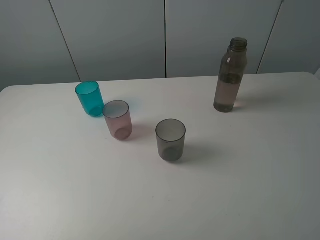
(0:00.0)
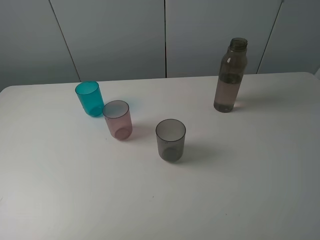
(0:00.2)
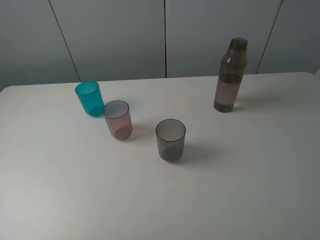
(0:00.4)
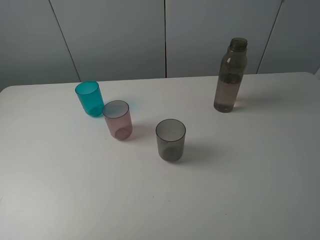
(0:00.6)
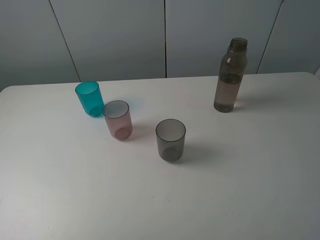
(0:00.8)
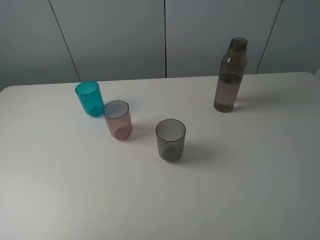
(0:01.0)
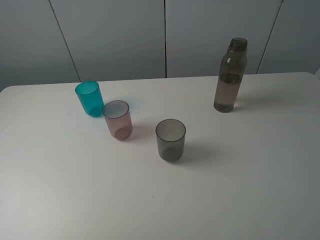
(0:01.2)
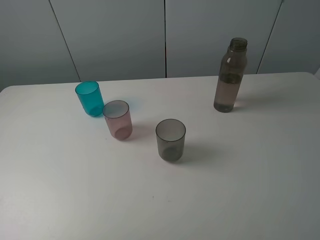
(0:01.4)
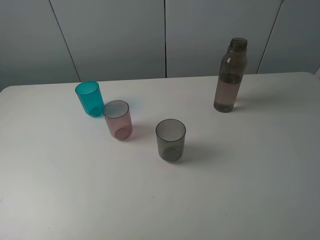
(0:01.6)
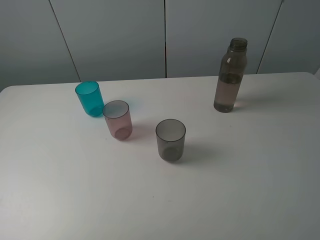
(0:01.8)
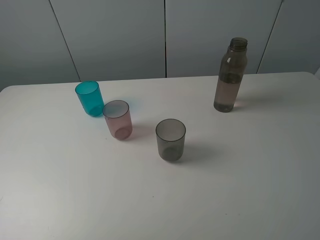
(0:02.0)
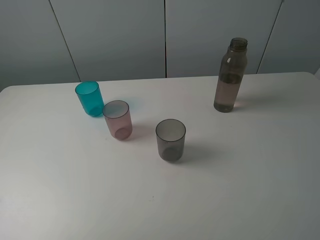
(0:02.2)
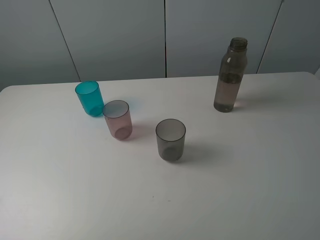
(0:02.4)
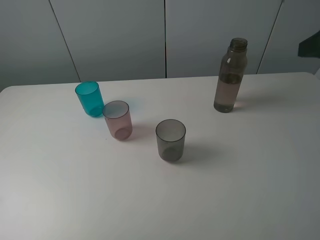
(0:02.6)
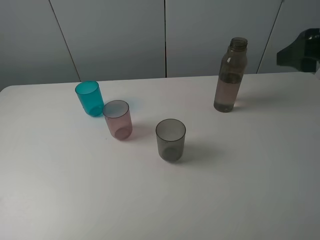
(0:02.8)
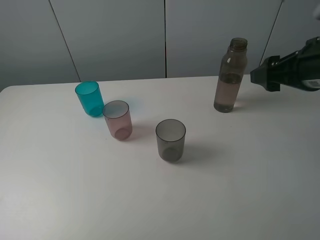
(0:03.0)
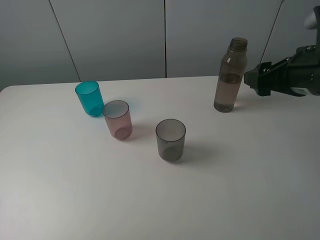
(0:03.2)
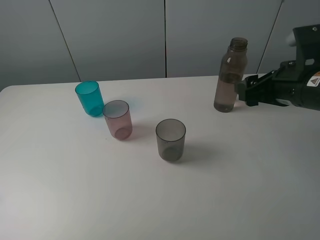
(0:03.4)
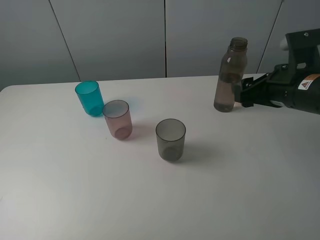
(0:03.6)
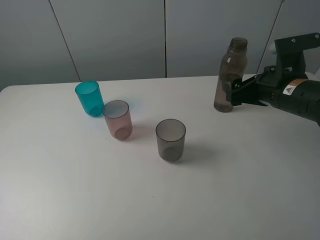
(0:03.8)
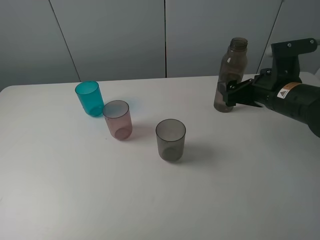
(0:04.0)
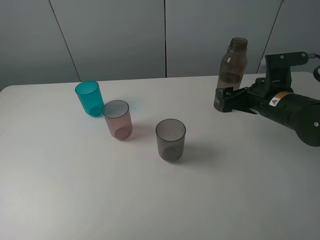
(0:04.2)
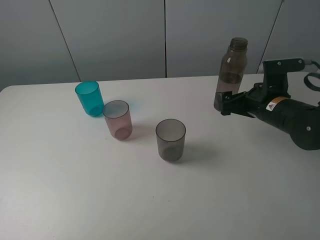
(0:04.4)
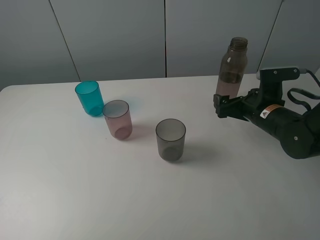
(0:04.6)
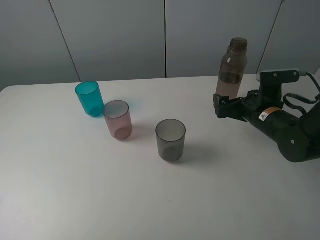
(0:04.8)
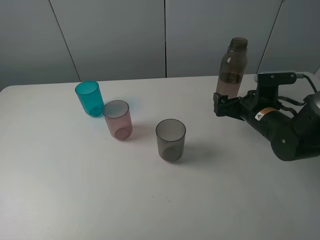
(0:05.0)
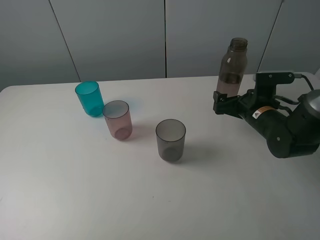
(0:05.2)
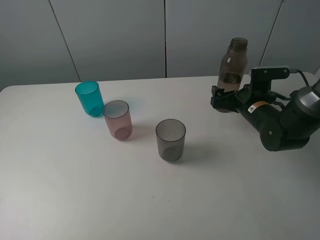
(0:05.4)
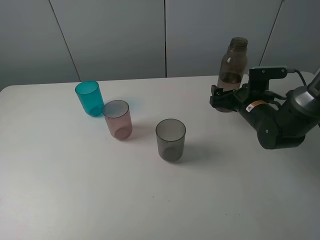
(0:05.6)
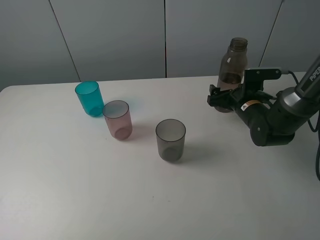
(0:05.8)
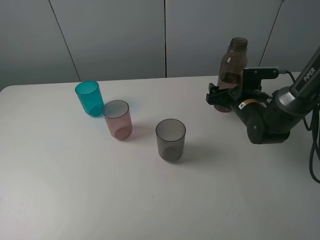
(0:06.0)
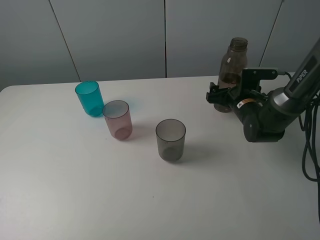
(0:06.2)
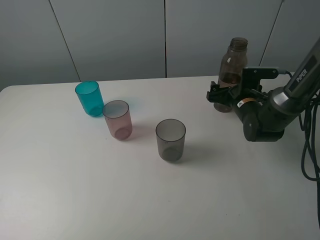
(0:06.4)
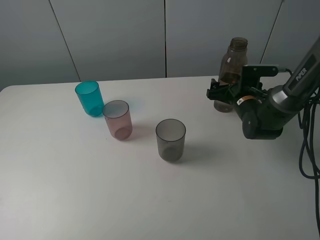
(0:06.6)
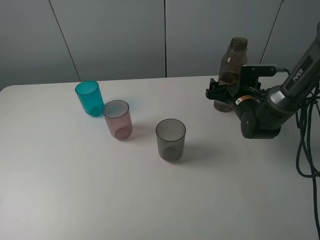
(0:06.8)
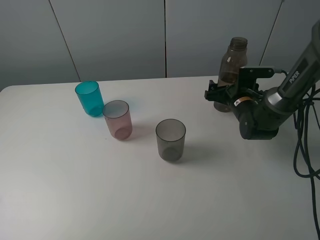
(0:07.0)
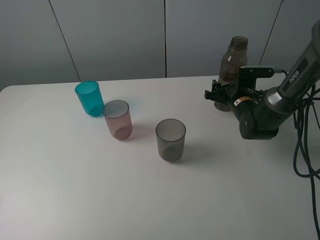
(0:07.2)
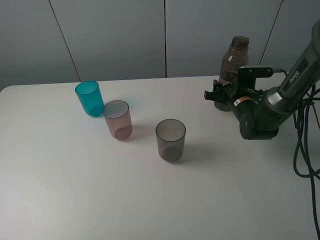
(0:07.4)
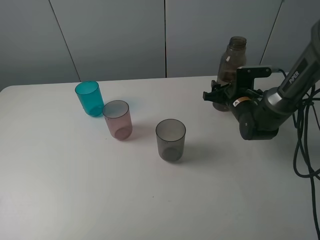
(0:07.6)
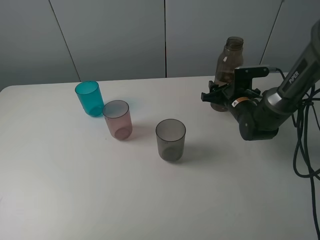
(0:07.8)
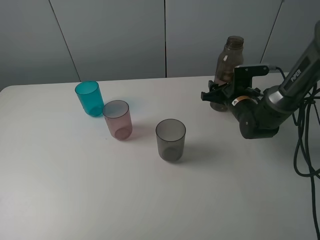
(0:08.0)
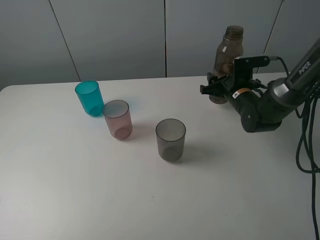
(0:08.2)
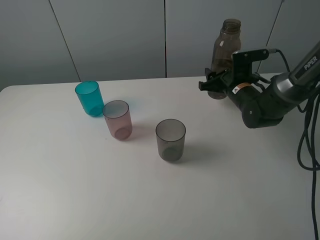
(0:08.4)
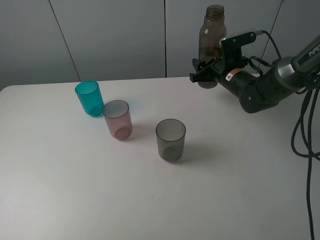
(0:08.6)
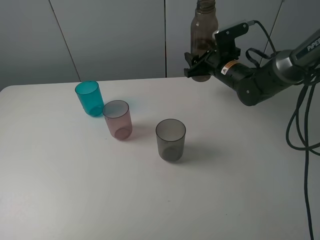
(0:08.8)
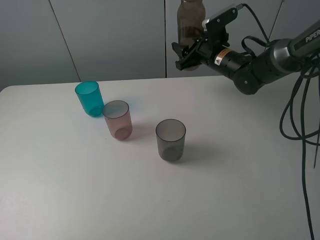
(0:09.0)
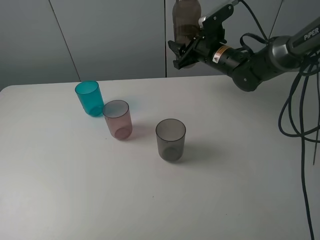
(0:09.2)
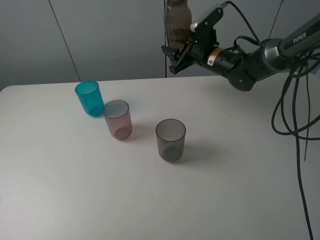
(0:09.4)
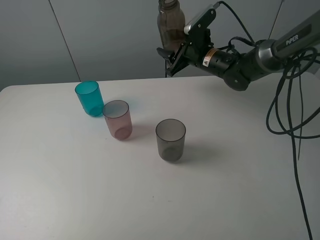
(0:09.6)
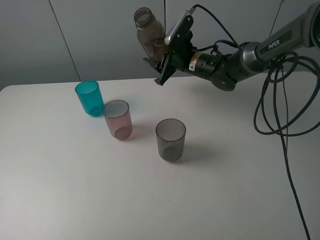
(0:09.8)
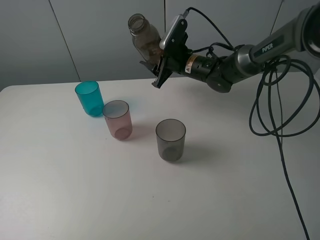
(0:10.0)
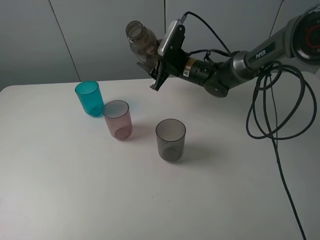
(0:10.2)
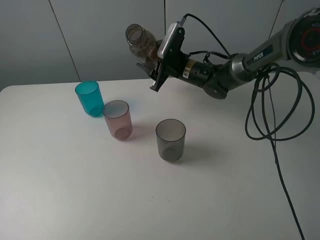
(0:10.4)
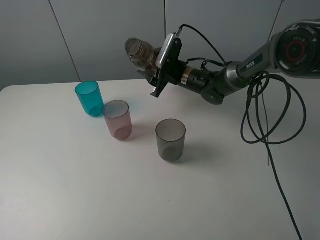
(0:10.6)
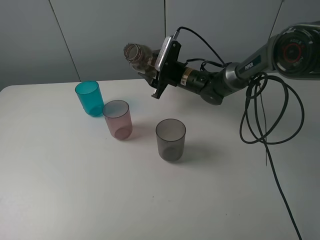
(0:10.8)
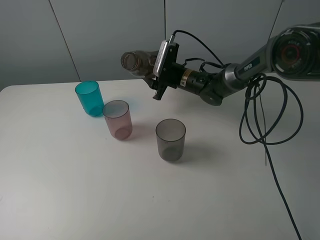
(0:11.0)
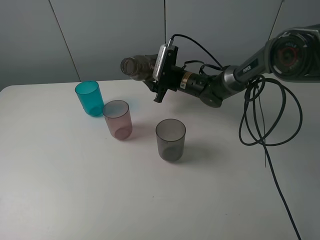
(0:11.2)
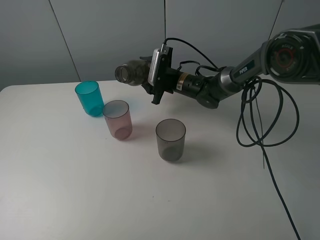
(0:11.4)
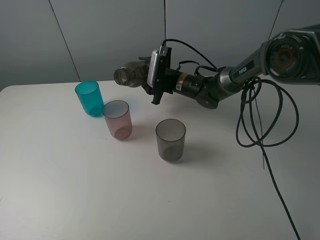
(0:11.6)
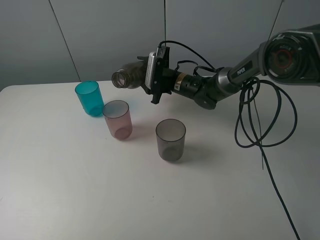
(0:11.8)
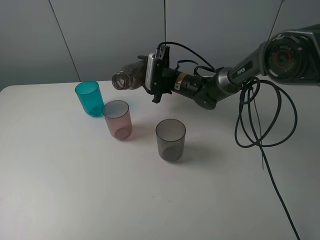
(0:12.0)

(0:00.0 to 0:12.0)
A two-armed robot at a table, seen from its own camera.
Task of the whole recording: pick up the bottle filled with water and pour water into the middle cup of the three cups.
Step, 0:00.0 - 0:08.0: Grasp the transparent bottle with the right gripper.
0:01.6 - 0:03.0: The right gripper travels forward by some 20 cm.
0:03.0 - 0:04.4: The right gripper goes approximately 15 cm downward and forward, and opens its fingers.
0:04.4 - 0:06.0: The right gripper heads forward and downward, covering some 10 cm.
0:06.0 - 0:07.6: The right gripper closes up.
0:07.6 - 0:09.0: The right gripper travels upward, to the left and forward by about 15 cm.
0:09.0 - 0:10.4: The right gripper heads to the left, covering some 5 cm.

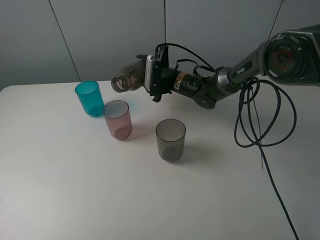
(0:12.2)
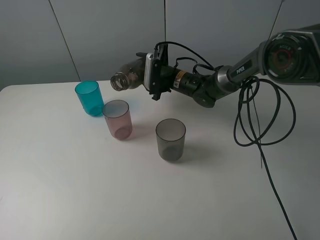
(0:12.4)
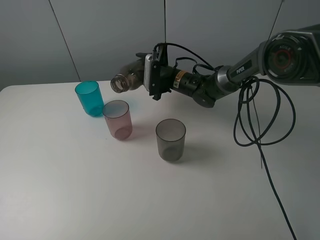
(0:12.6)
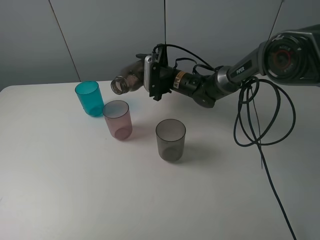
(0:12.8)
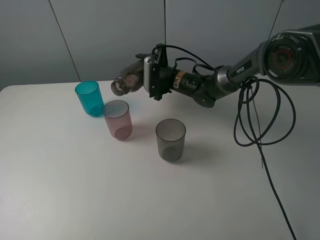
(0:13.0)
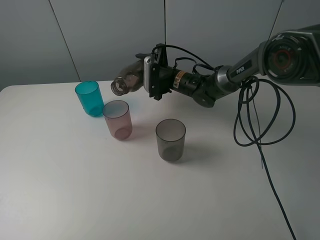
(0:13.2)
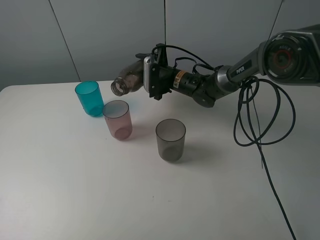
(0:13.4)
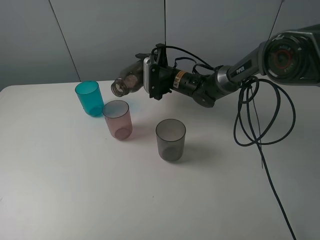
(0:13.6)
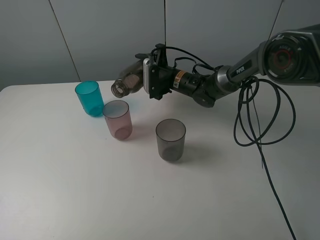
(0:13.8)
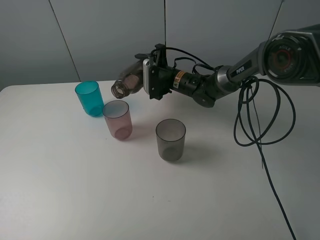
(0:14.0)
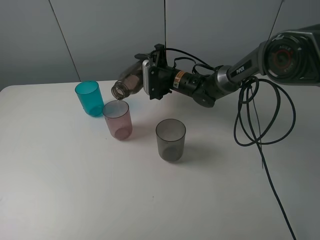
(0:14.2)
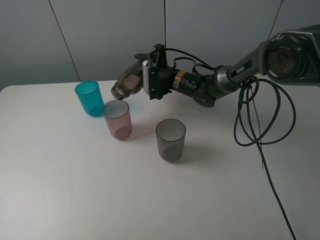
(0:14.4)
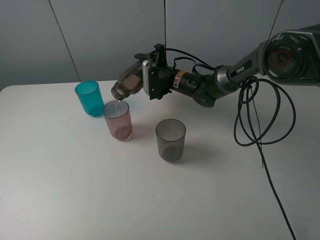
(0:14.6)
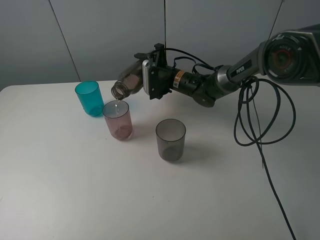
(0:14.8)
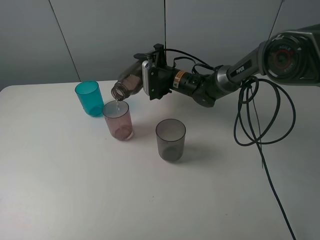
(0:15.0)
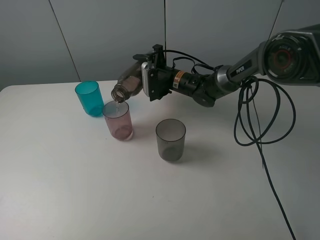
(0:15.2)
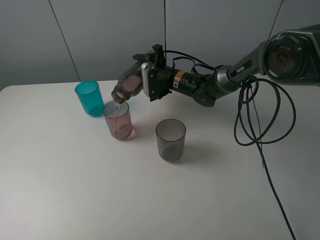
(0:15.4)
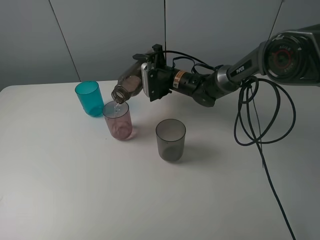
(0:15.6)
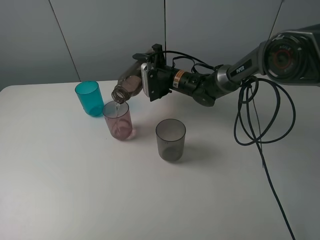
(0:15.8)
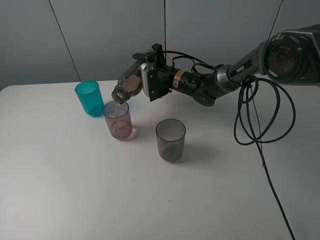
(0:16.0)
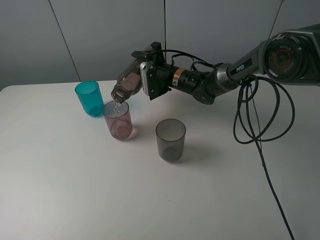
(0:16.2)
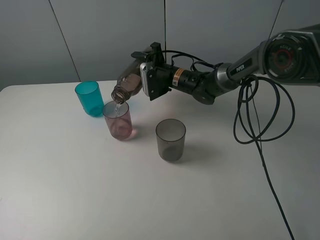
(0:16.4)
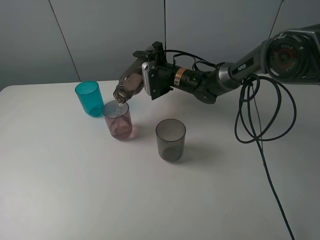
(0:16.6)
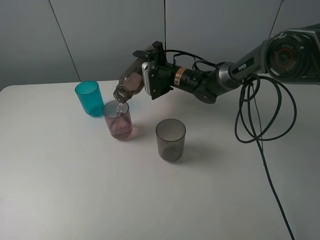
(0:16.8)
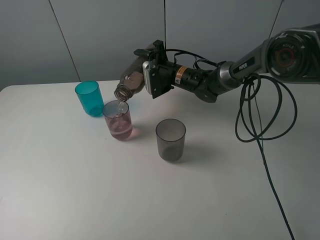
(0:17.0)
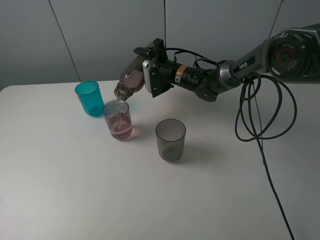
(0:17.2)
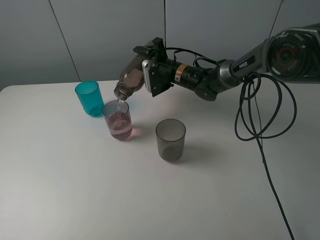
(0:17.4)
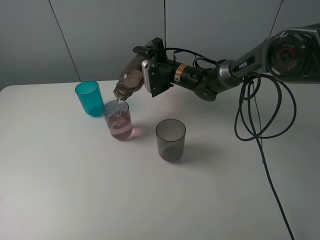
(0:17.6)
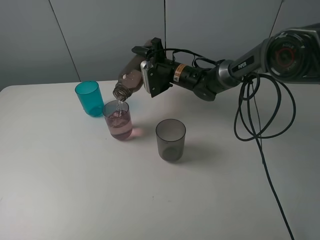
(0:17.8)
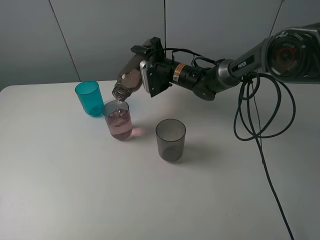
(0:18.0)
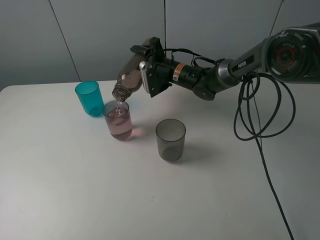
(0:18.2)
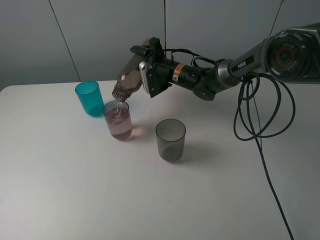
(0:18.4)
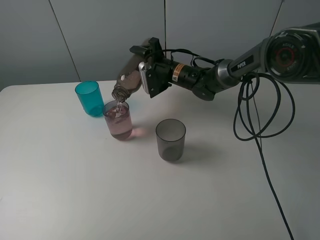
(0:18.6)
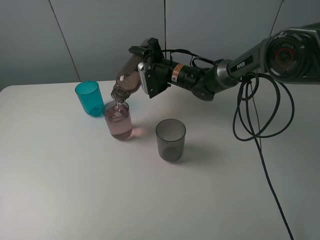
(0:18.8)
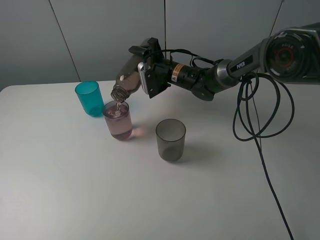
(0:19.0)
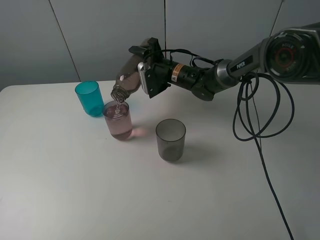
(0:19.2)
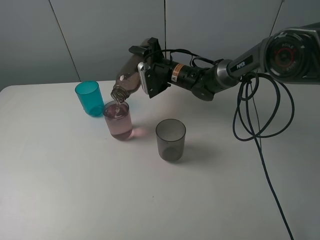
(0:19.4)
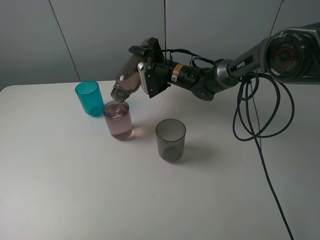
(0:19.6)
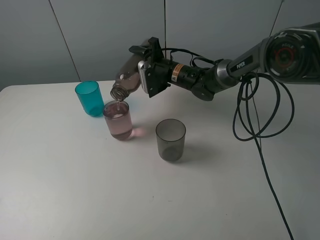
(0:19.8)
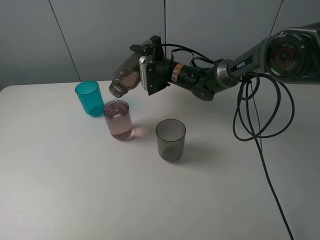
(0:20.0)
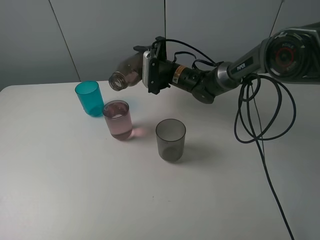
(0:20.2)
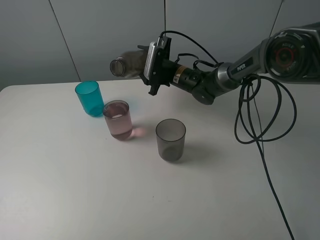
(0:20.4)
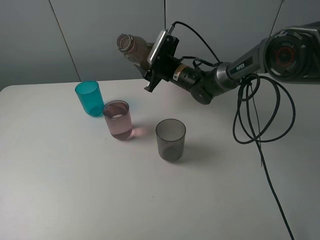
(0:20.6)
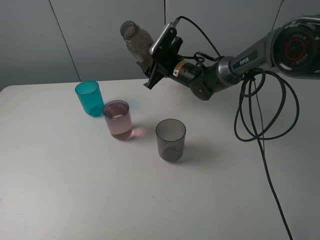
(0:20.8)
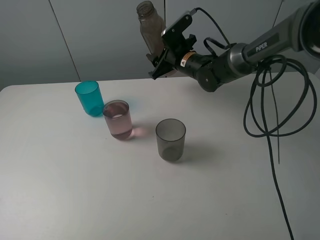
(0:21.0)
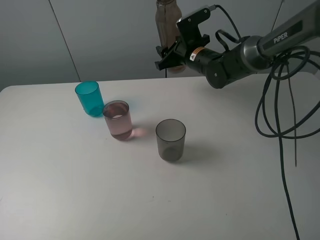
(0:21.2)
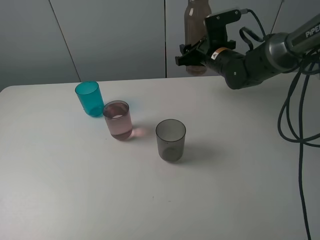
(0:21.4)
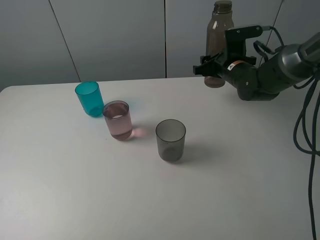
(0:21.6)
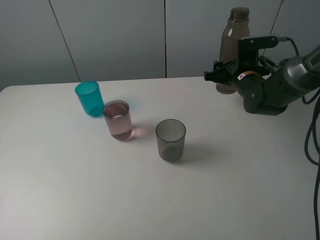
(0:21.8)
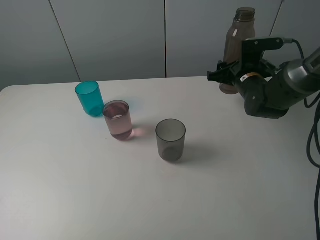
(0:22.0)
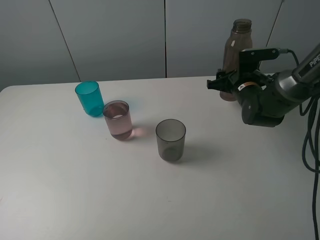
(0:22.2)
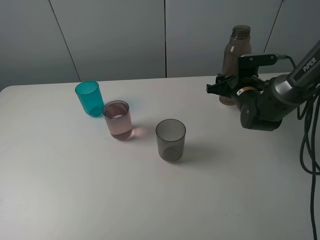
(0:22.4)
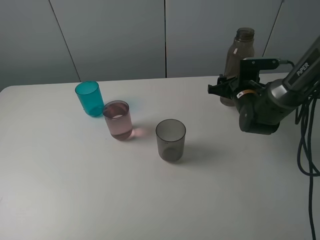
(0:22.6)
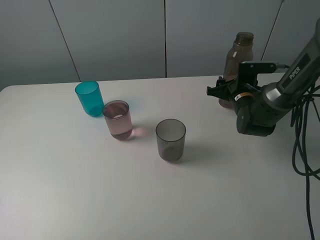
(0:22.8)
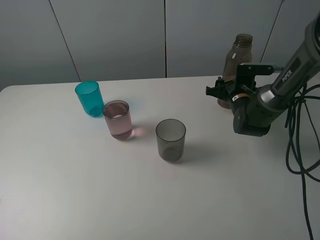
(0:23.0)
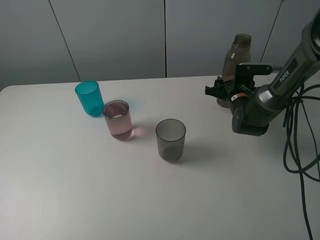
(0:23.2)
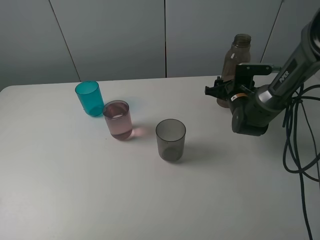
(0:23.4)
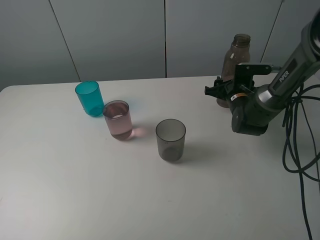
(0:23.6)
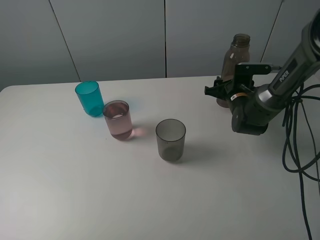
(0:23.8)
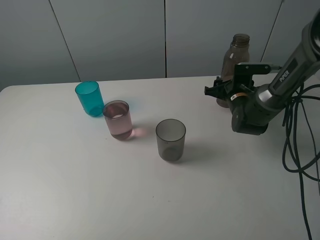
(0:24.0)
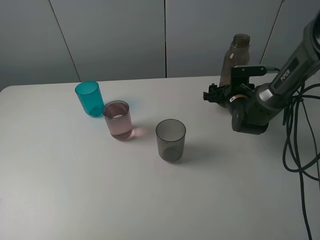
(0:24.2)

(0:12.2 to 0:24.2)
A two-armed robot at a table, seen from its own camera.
Task of the whole recording: pick up the bottle filled with water and pour water into the middle cup of the three cups.
Step, 0:12.2 - 0:14.6: Pour water from transparent bottle to red cup with the right gripper.
0:12.2 - 0:16.6: The grippers stay close to where they were, moving slightly.
0:16.6 - 0:18.2: There are only small adjustments of the grippers.
0:18.2 - 0:19.8: Both grippers stay about where they are.
0:19.8 - 0:21.2: The right gripper moves to the right and upward, some 10 cm.
0:21.2 - 0:22.6: The right gripper travels to the right, downward and backward by some 15 cm.
0:22.6 - 0:24.2: The right gripper opens.
